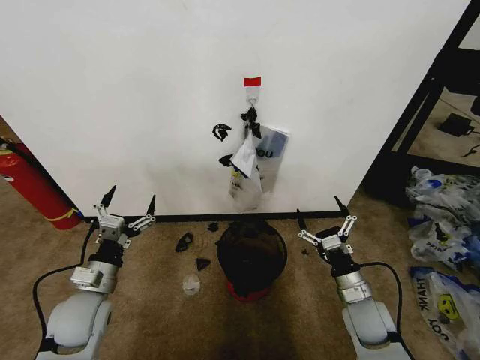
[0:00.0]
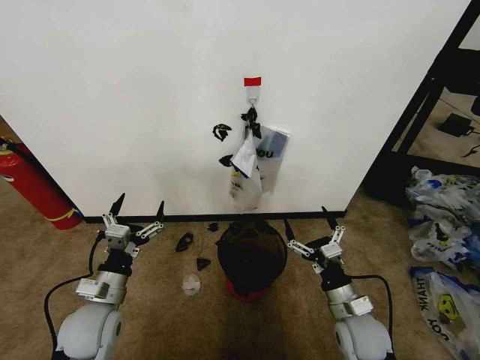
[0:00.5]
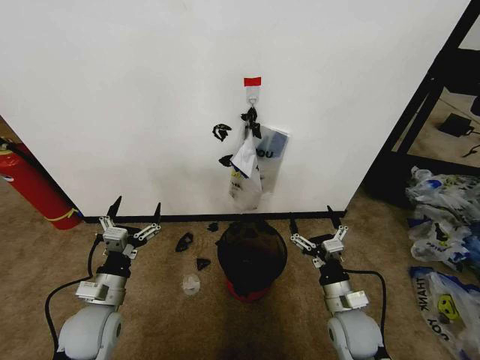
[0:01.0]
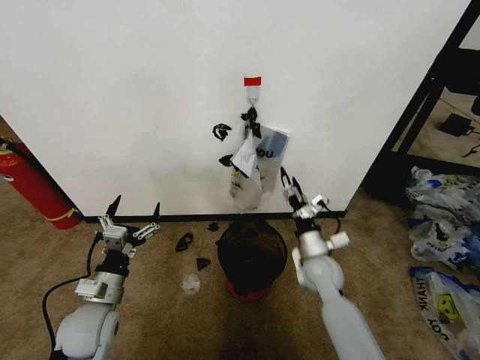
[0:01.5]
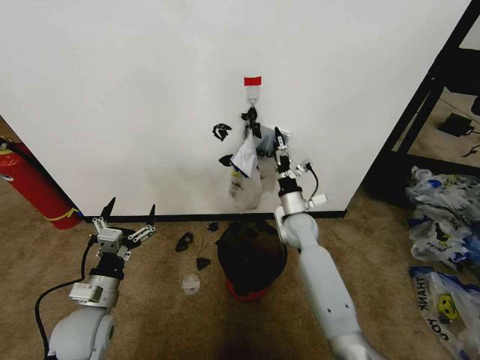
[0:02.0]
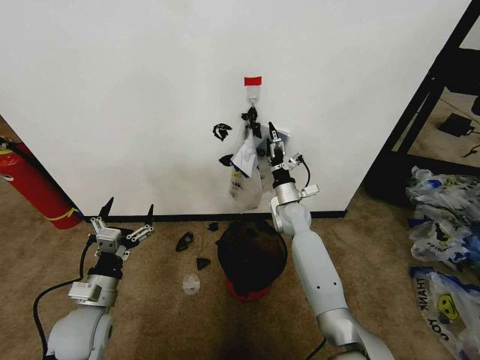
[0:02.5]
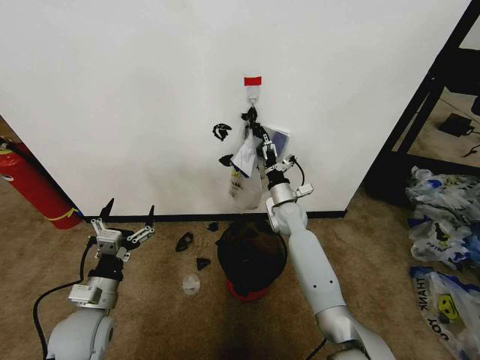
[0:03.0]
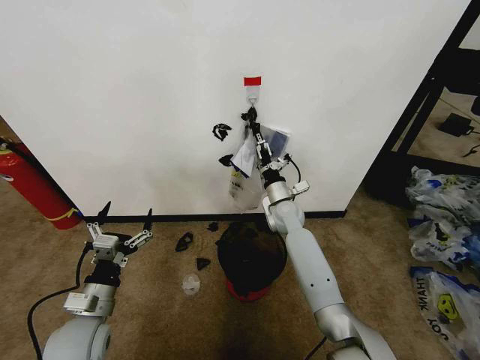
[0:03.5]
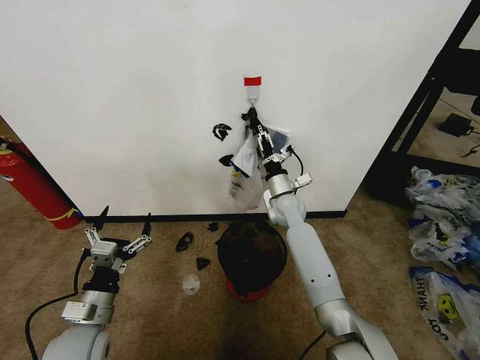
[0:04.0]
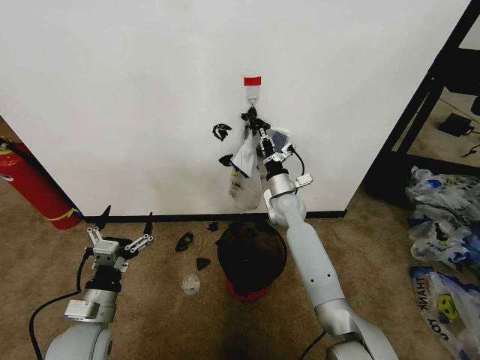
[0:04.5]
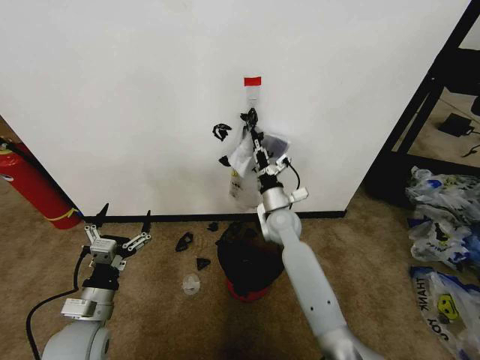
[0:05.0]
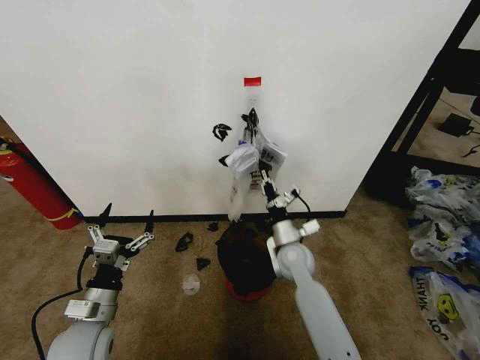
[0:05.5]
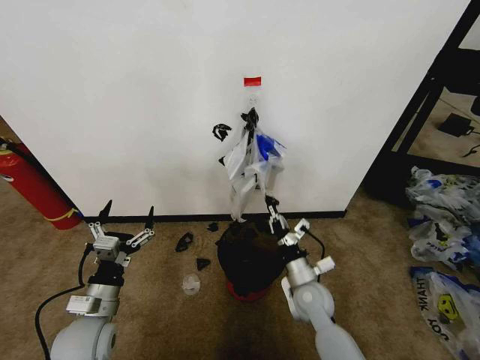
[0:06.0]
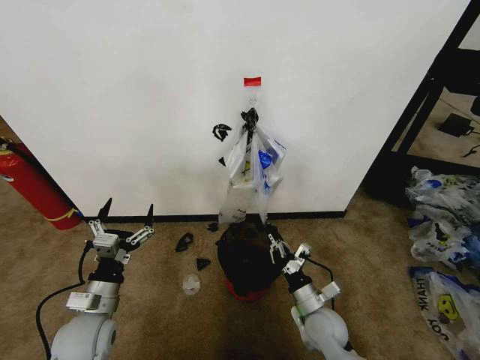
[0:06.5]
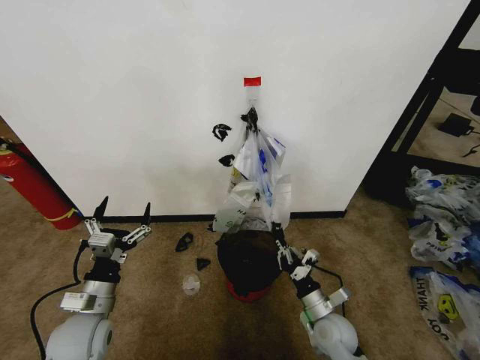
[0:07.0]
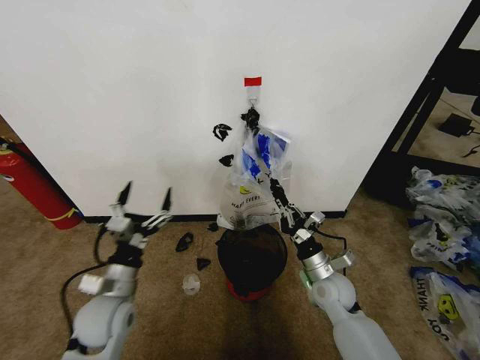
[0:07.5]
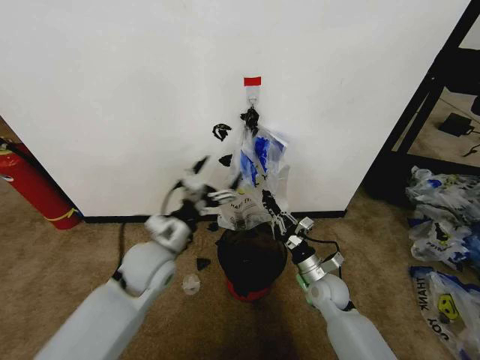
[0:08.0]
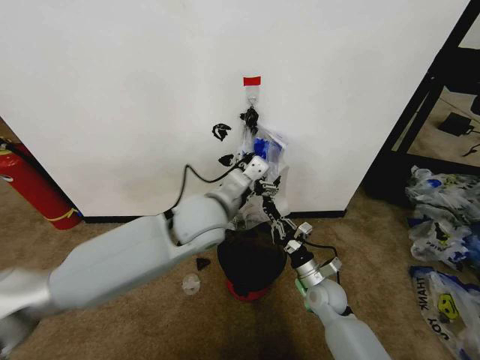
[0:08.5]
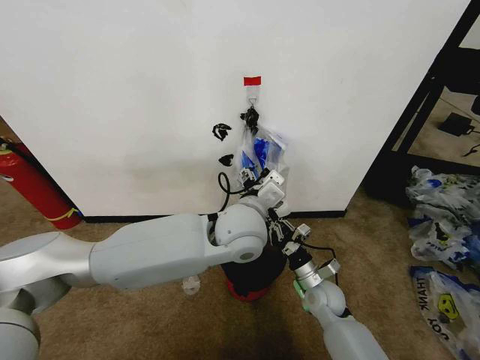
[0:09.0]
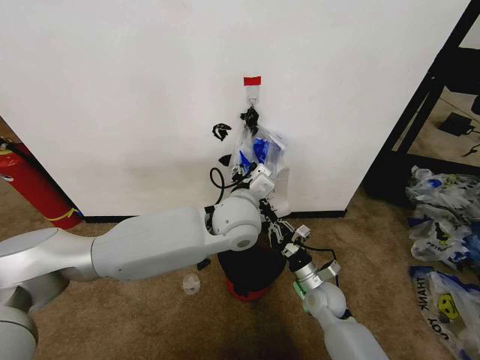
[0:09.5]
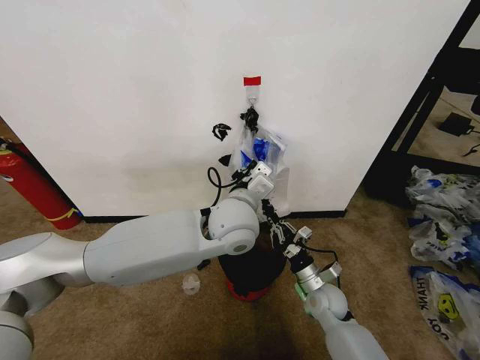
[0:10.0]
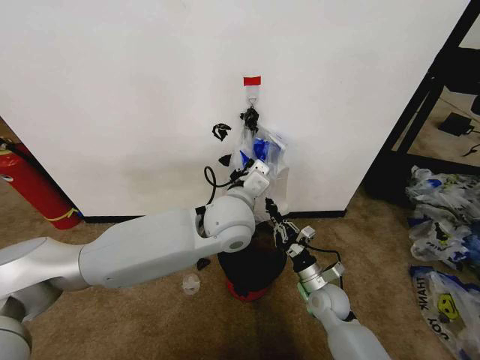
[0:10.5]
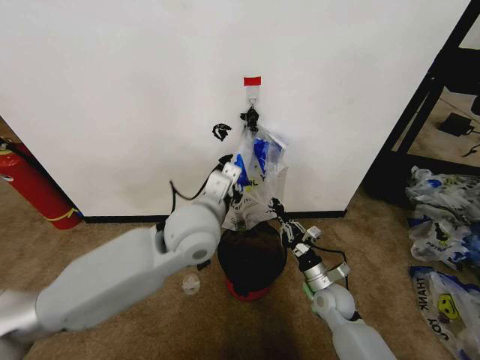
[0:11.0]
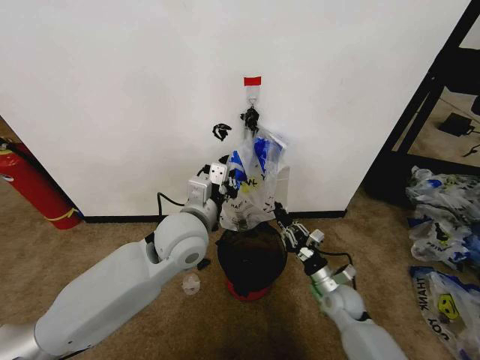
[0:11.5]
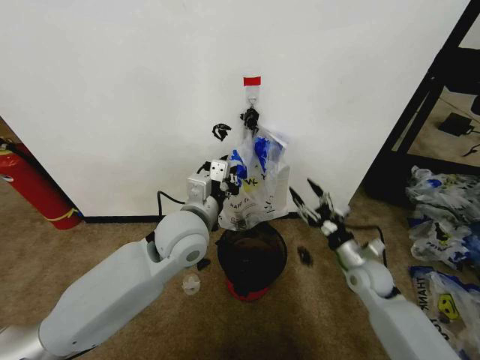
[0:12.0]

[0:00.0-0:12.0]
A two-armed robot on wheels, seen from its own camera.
Task of the whole recording: Pick up the garbage bag from the wall and place it over the trash bin.
2.0 to 4.0 s: The right gripper shifts by about 5 cm, and closes its fingers.
4.0 to 6.0 s: The right gripper is displaced backward and downward by approximately 25 cm, and closes its fingers.
6.0 to 8.0 s: The left gripper heads to the right, forward and upward, covering about 20 cm. Meanwhile the right gripper heads to the right, covering approximately 5 cm, and reaches roughly 5 cm backward, then returns.
8.0 to 10.0 s: The left gripper travels to the right and upward by about 20 cm, and closes.
10.0 to 12.0 s: The right gripper shifts approximately 10 cm to the right and upward, and opens; the left gripper shifts about 10 cm to the left.

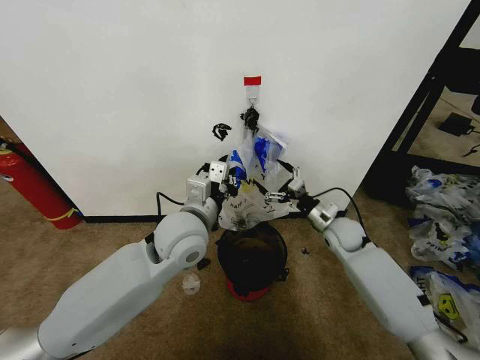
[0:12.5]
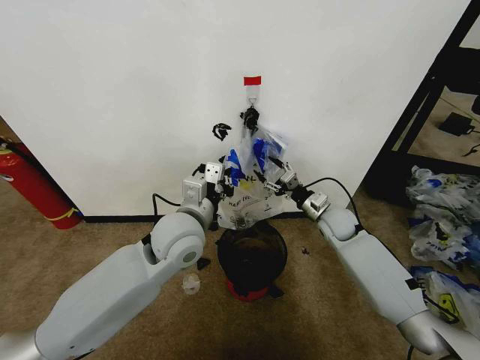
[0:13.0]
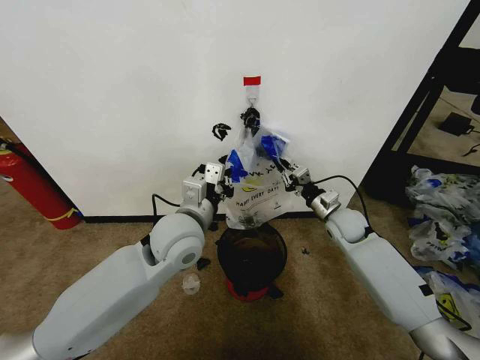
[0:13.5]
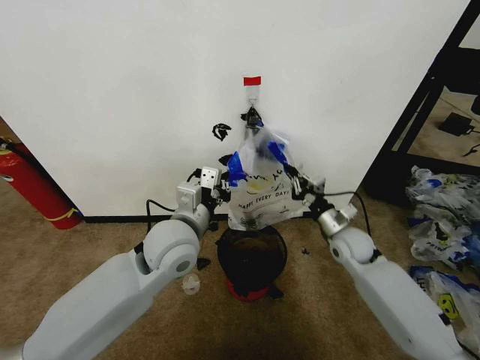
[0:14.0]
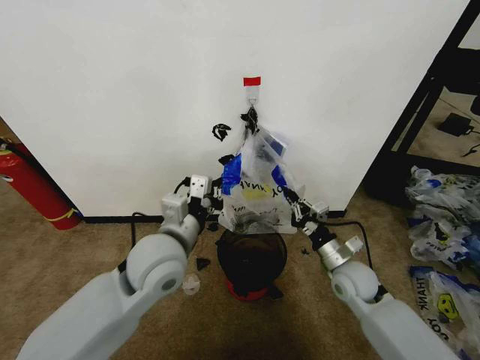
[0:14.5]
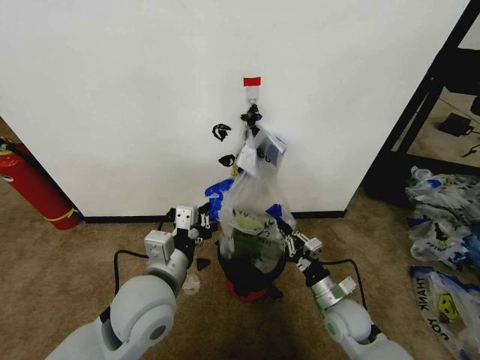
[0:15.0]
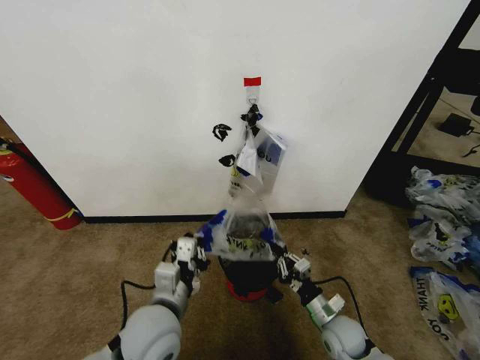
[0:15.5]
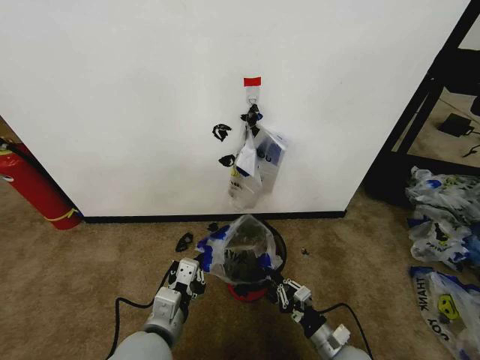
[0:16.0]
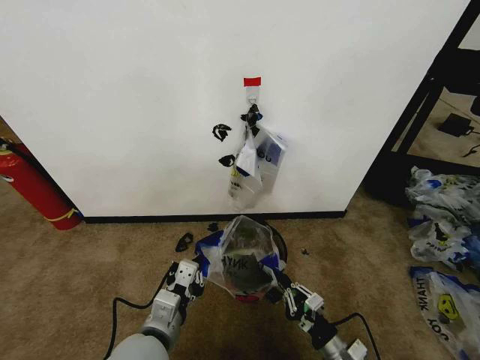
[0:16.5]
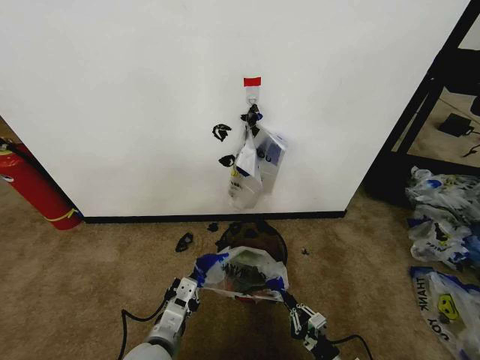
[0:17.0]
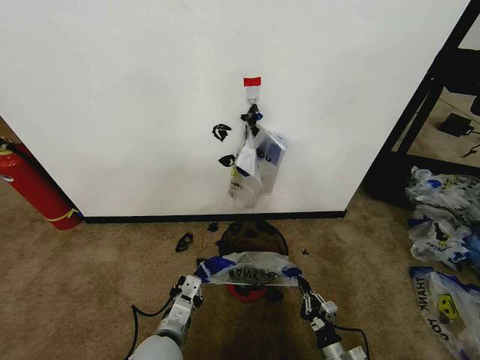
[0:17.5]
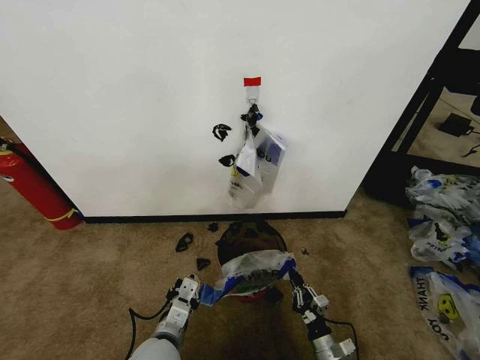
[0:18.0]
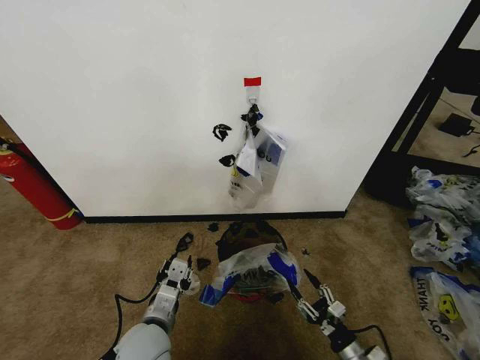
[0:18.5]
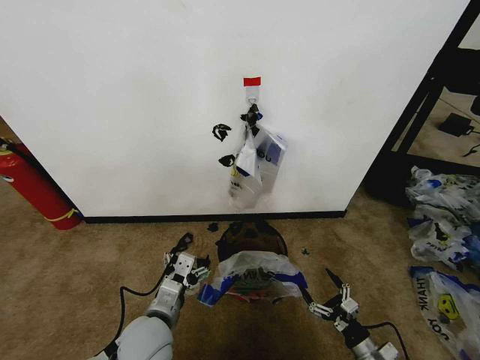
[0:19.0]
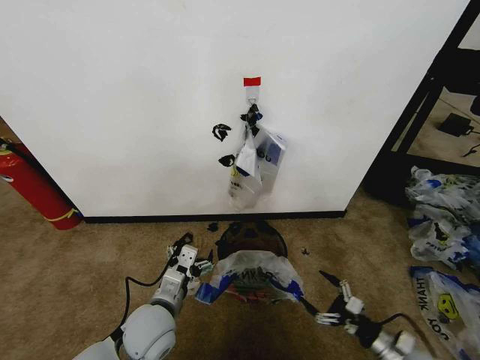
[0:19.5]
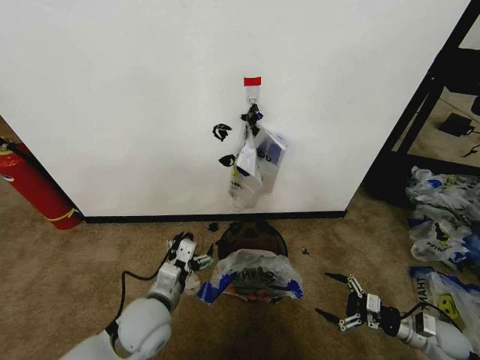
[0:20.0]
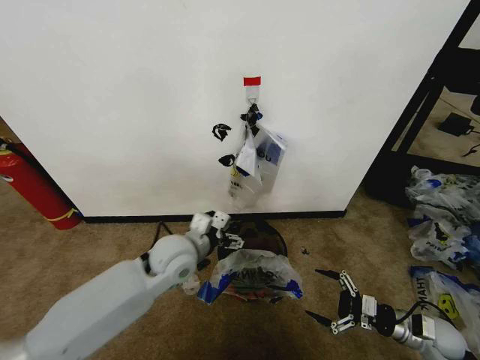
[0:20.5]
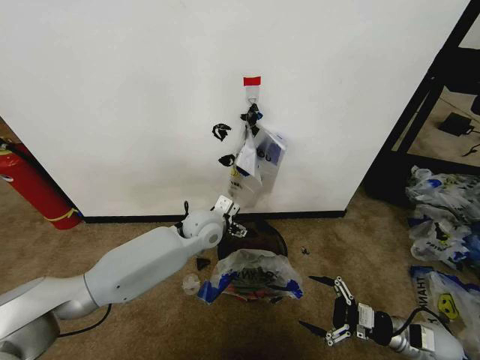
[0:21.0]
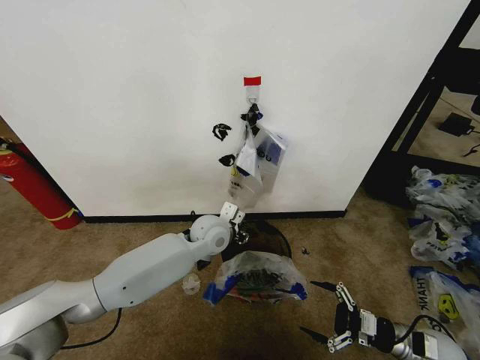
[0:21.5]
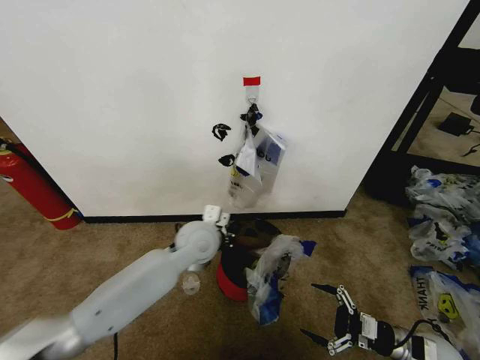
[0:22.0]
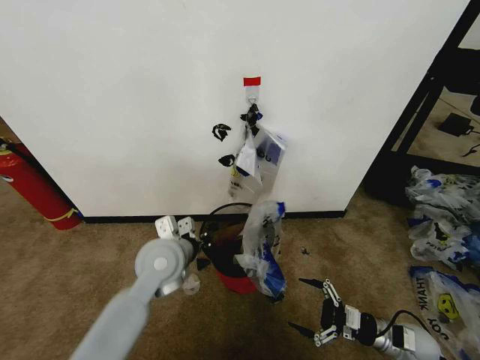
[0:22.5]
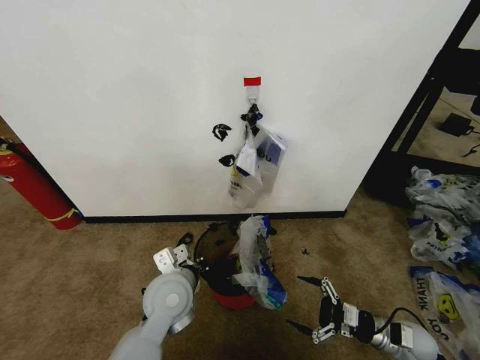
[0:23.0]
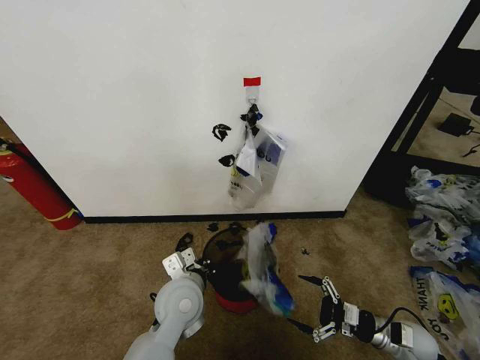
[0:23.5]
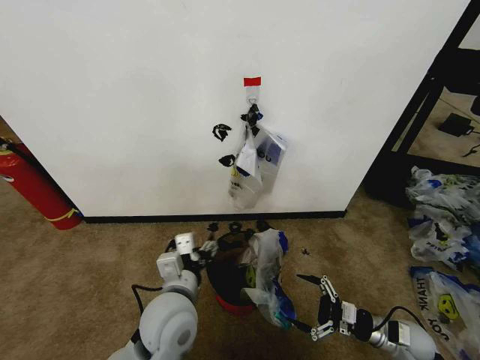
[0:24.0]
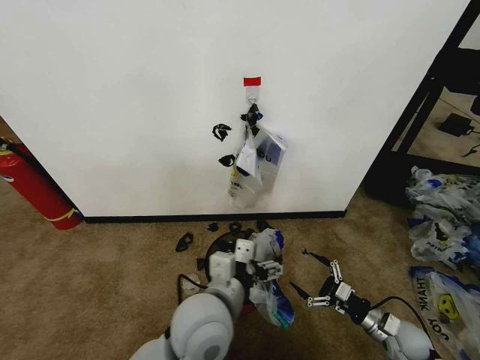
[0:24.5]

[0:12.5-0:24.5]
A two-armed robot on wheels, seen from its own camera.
Task of the whole recording: Pick up the garbage bag from the wall and place it over the trash bin.
12.5 to 14.5 s: The right gripper heads backward, covering roughly 10 cm, and closes, while the left gripper changes place by some 5 cm.
14.5 to 16.5 s: Both grippers move backward and downward, some 20 cm.
16.5 to 18.5 s: The left gripper shifts about 5 cm downward, and opens its fingers. The right gripper moves downward and to the right, approximately 10 cm, and opens.
18.5 to 20.5 s: The left gripper goes about 20 cm forward and upward, and opens up. Meanwhile the right gripper shifts roughly 20 cm to the right, upward and forward, and opens its fingers.
20.5 to 22.5 s: The right gripper shifts by roughly 5 cm; the left gripper reaches some 10 cm forward, then returns, and closes its fingers.
22.5 to 24.5 s: The left gripper moves backward and to the right, about 15 cm, and opens up.

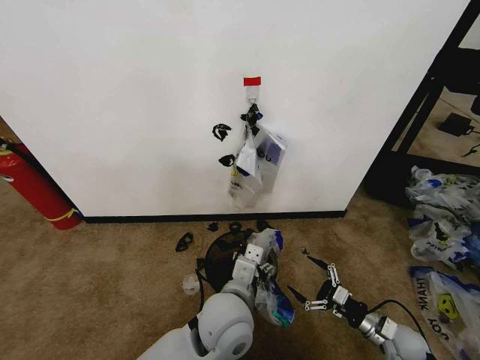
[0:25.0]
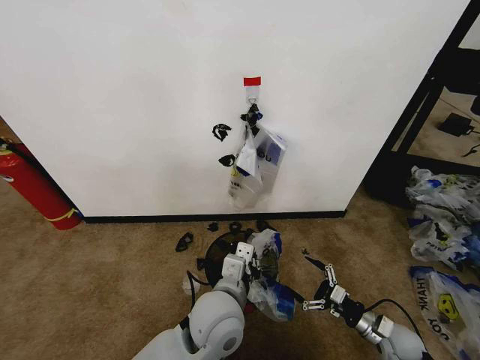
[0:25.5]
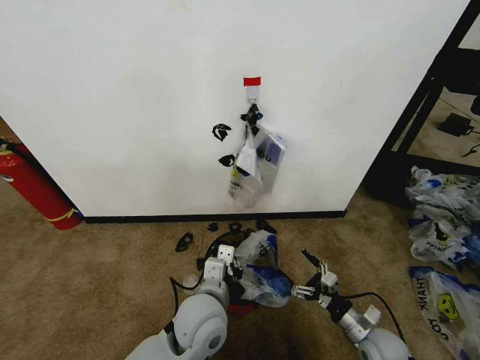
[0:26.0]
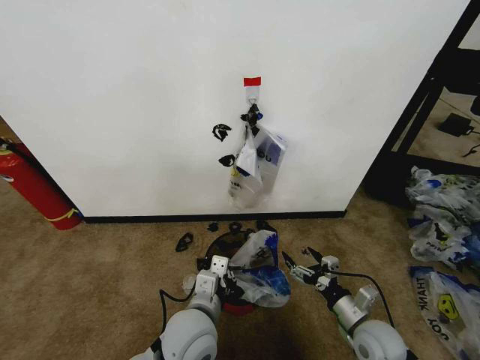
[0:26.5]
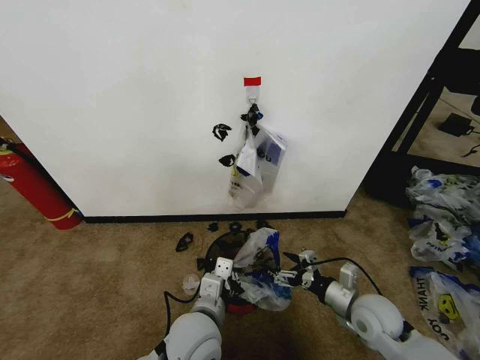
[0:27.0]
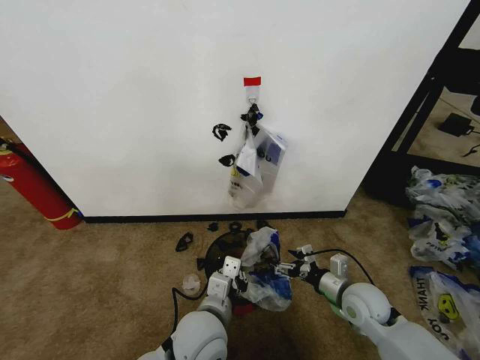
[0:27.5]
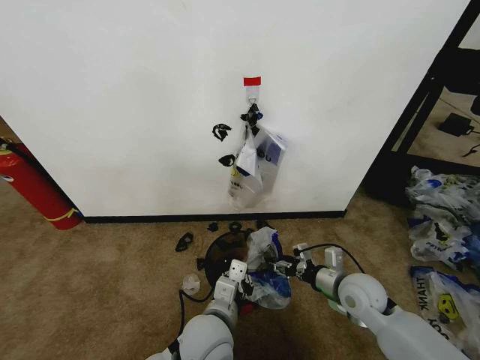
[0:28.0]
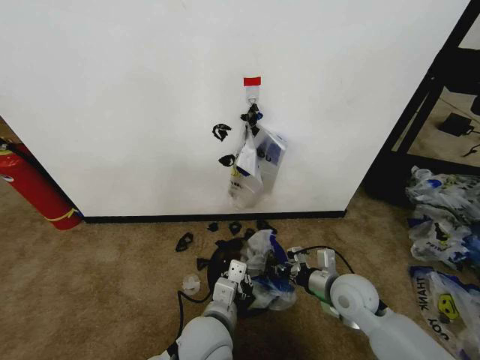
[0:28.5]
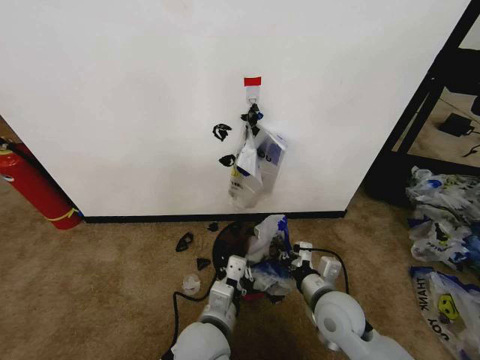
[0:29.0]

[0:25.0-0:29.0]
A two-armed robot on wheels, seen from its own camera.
Task of the whole recording: Pick up the garbage bag from the wall and place it over the trash bin.
25.0 to 27.0 s: The right gripper heads upward and to the left, covering some 15 cm. The left gripper moves to the left, approximately 5 cm, and closes.
27.0 to 29.0 s: The right gripper goes some 10 cm to the left, and closes its fingers.
